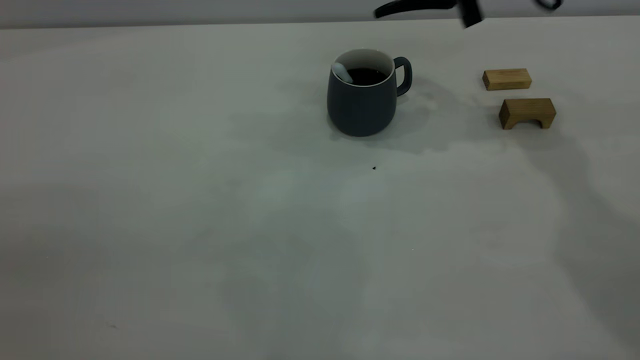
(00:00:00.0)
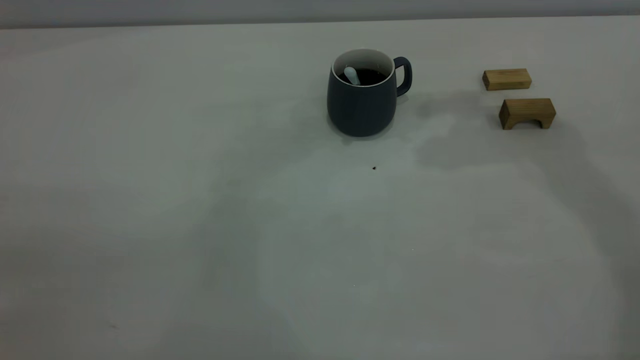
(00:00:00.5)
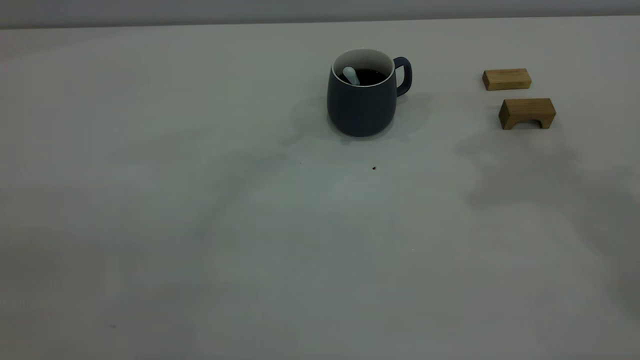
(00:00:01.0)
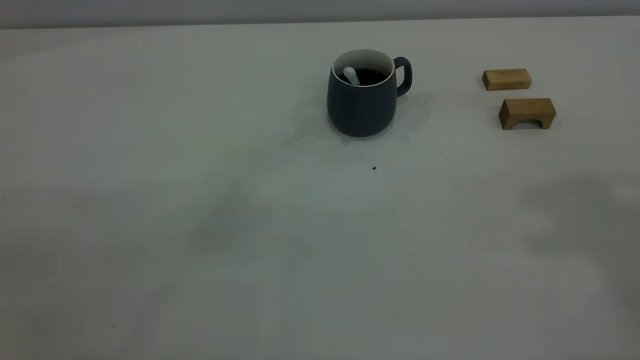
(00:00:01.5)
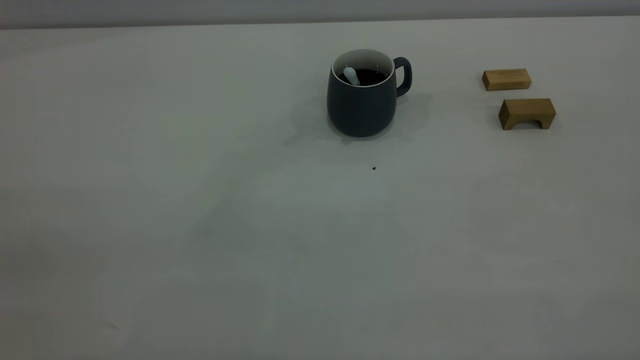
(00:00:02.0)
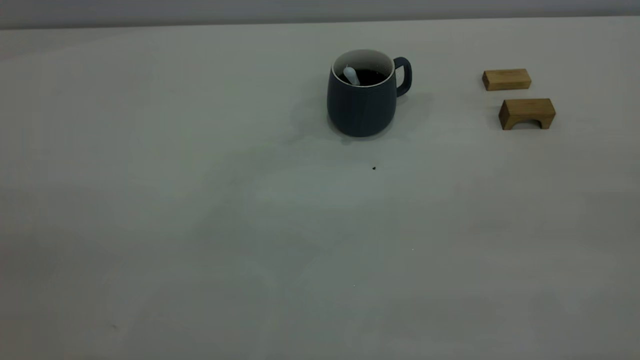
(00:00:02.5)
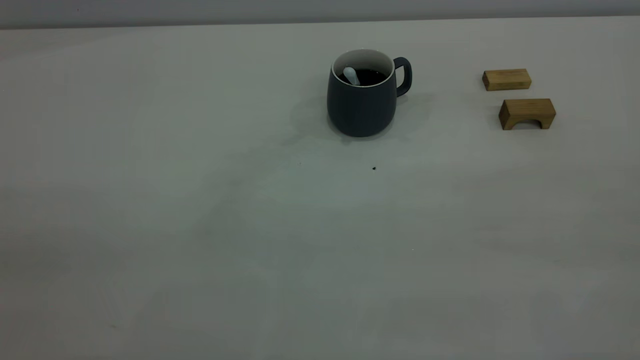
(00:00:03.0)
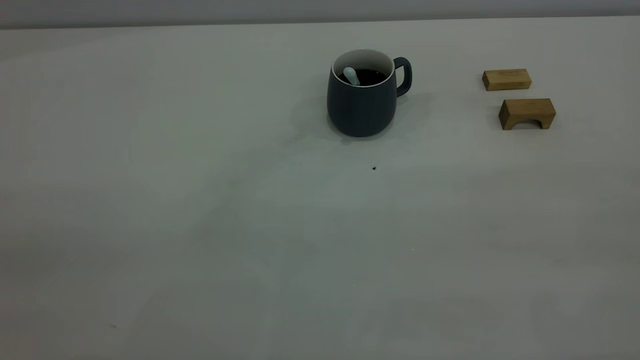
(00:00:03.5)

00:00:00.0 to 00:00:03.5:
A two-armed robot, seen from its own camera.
00:00:00.0 to 00:00:02.0: The right gripper goes about 50 cm backward and upward, and closes its fingers.
